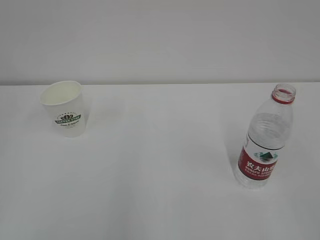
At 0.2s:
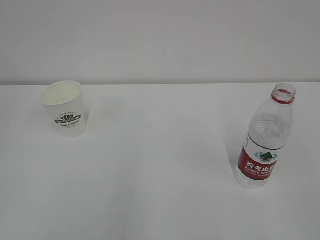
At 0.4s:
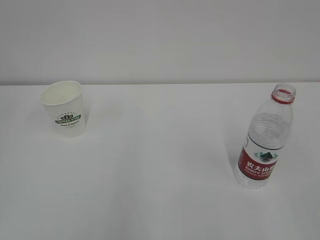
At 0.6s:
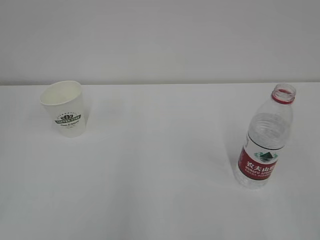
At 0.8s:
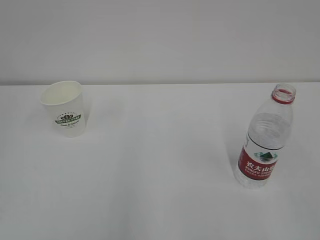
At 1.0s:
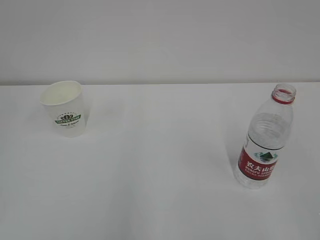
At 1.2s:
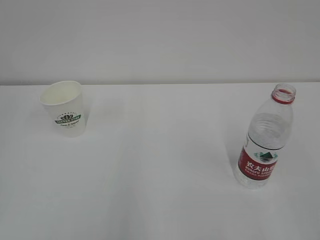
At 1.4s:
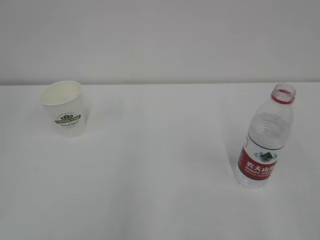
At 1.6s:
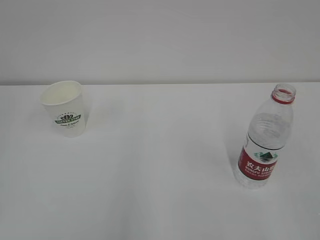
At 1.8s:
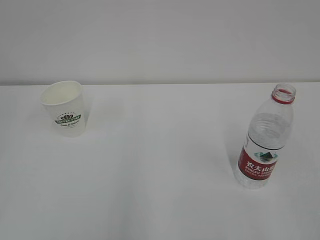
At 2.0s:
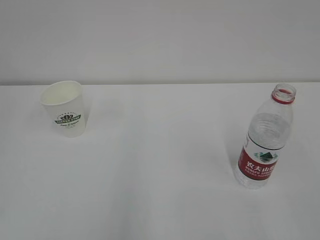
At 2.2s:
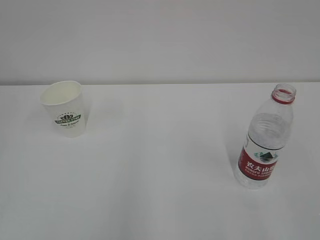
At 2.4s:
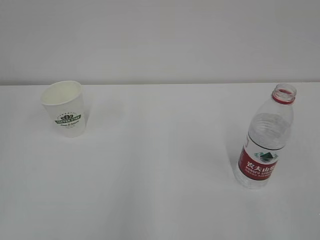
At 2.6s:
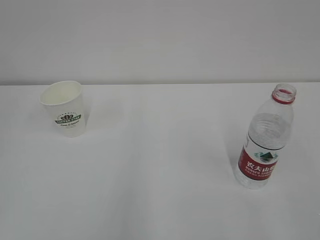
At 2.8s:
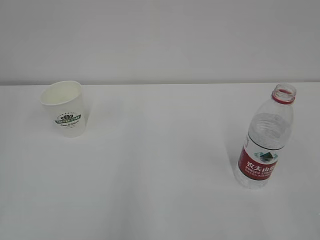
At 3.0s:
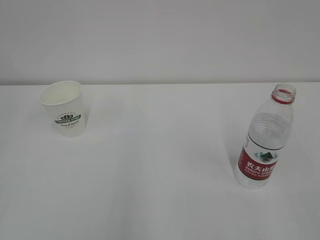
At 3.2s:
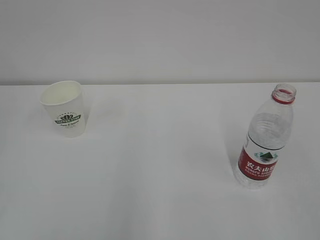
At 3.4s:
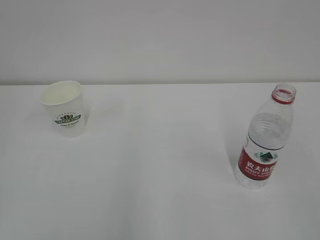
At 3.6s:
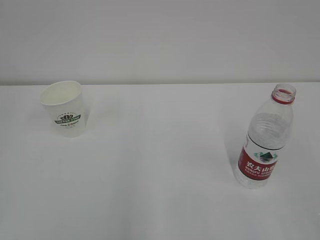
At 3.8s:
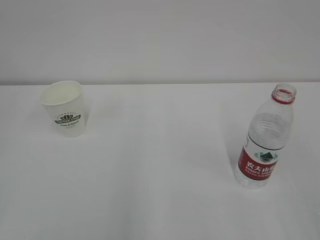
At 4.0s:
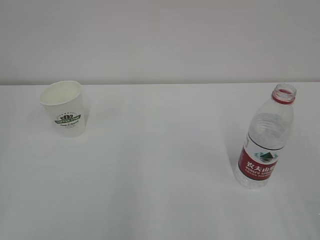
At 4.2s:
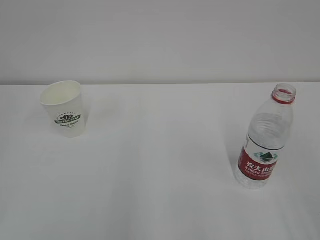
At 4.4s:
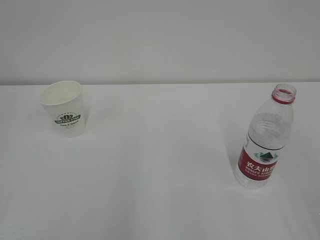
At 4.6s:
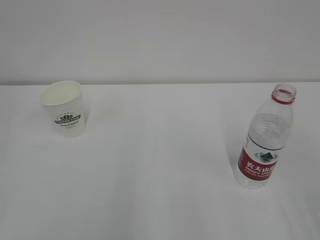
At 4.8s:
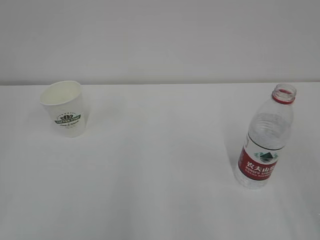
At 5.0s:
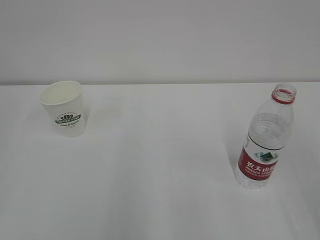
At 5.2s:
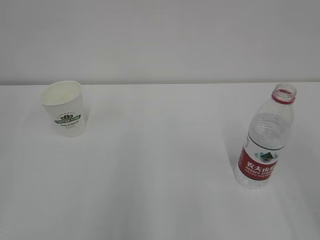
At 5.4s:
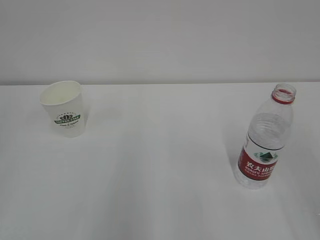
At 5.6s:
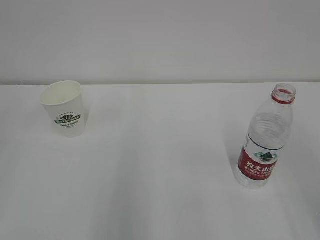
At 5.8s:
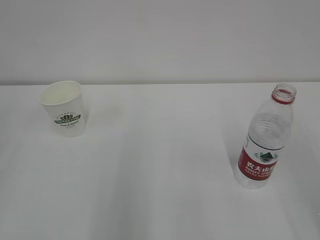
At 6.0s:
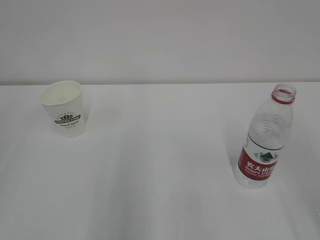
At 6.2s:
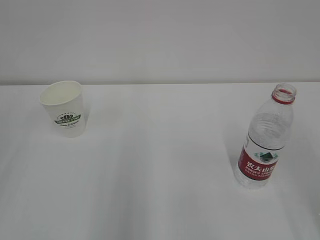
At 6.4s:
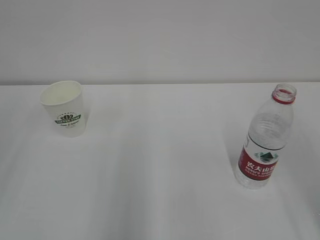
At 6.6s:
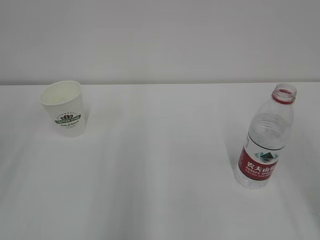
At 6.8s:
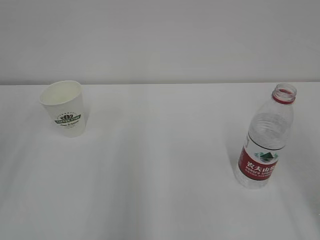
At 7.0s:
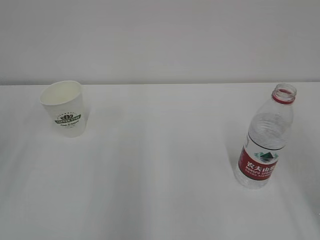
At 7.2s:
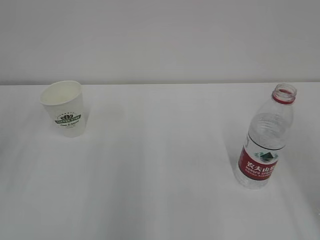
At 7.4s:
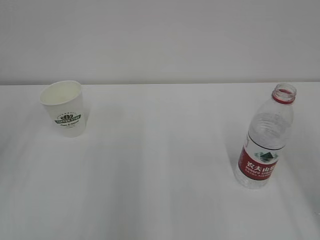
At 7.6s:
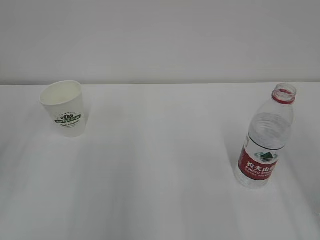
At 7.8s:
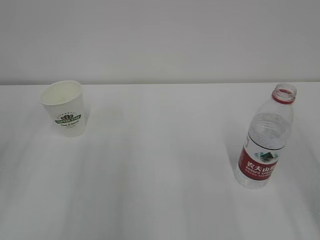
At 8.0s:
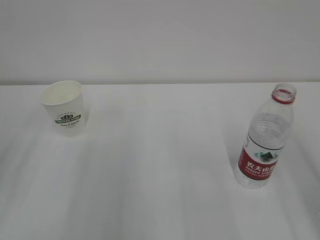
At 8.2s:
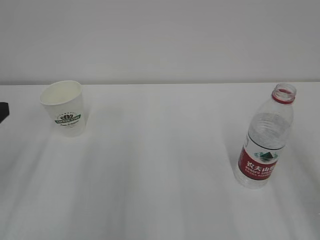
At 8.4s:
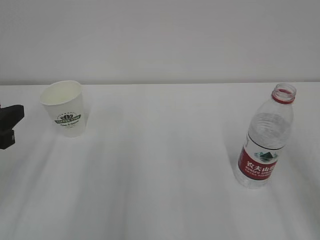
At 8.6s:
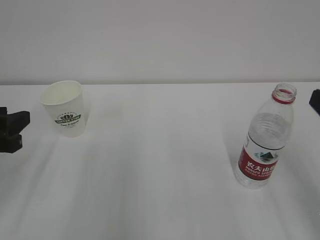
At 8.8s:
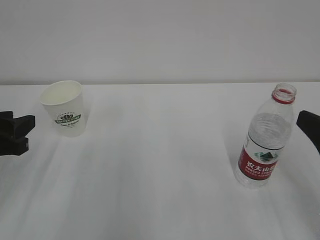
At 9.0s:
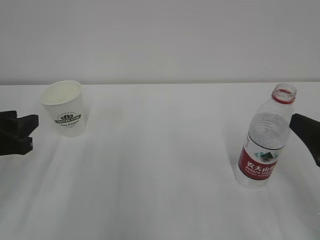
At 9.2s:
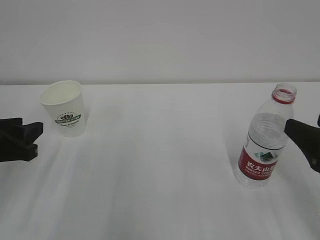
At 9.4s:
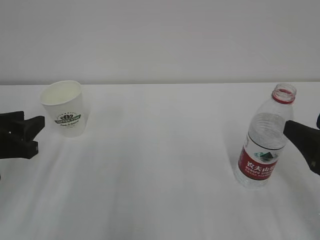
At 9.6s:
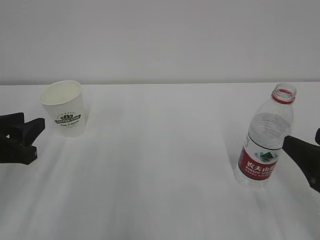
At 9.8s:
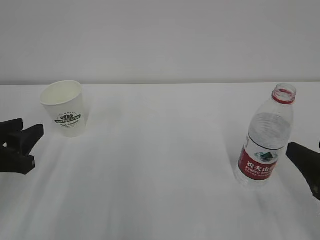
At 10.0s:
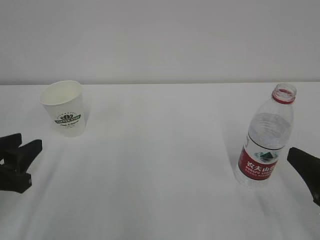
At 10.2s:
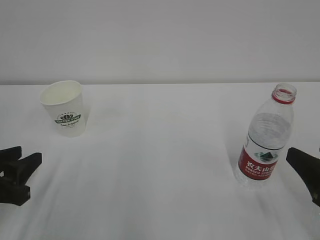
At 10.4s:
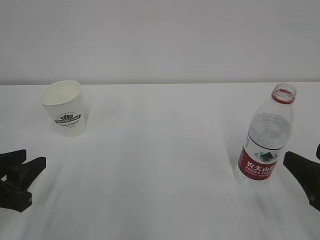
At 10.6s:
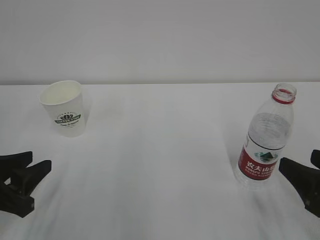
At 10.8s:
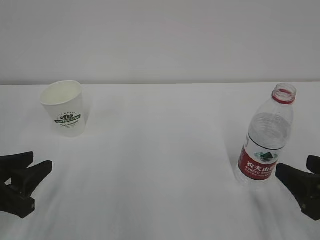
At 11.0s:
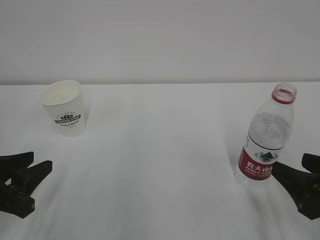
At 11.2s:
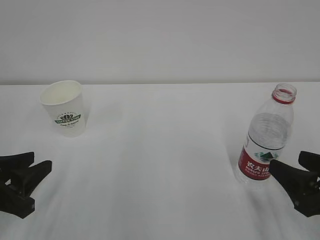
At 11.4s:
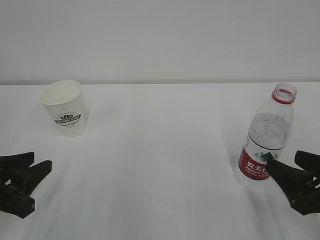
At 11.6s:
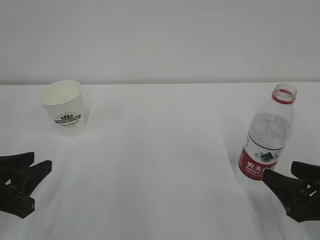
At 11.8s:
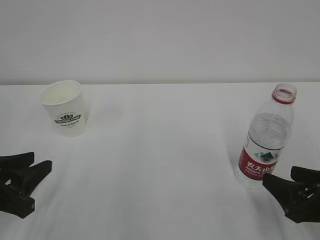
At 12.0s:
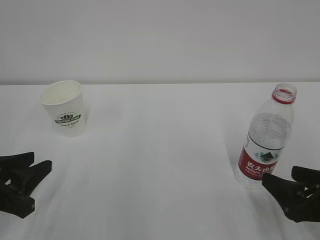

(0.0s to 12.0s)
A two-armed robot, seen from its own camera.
1.6s - 3.0s: Both grippers stay about where they are.
7.6s - 9.0s: Both grippers move downward, some 5 cm.
9.0s - 10.4s: The left gripper changes place by approximately 5 cm.
10.4s - 12.0s: The right gripper heads downward, covering roughly 5 cm.

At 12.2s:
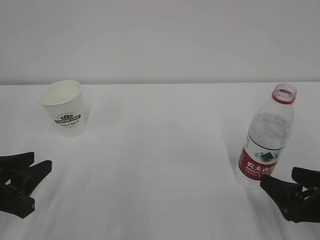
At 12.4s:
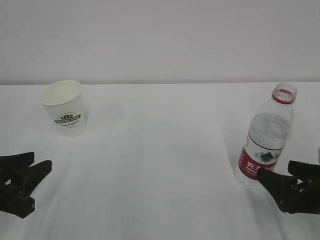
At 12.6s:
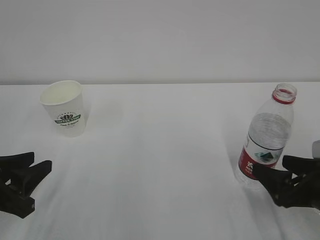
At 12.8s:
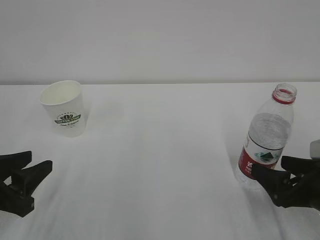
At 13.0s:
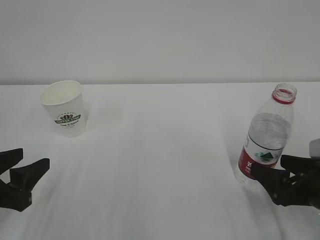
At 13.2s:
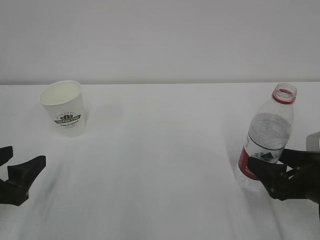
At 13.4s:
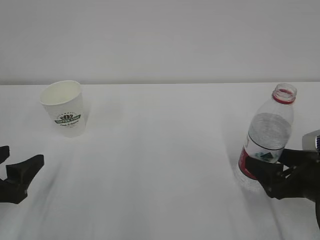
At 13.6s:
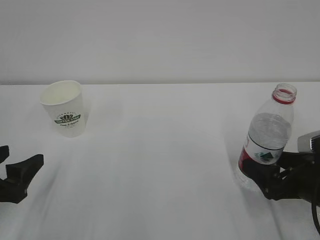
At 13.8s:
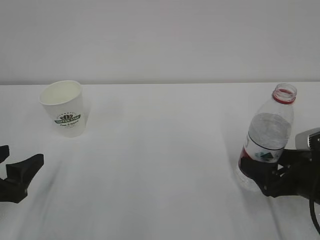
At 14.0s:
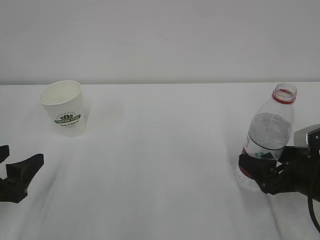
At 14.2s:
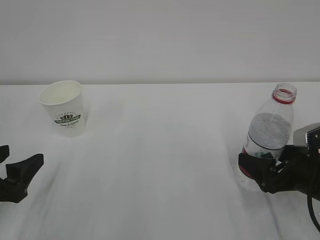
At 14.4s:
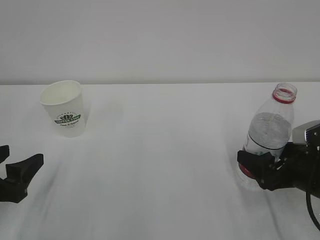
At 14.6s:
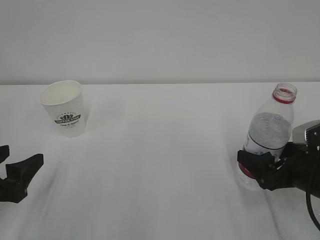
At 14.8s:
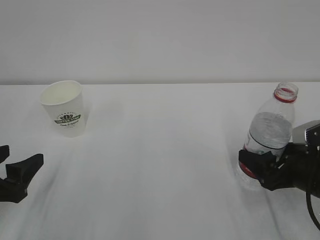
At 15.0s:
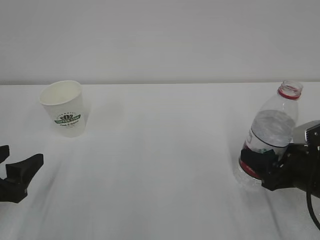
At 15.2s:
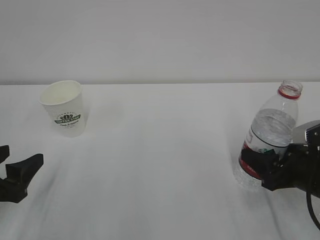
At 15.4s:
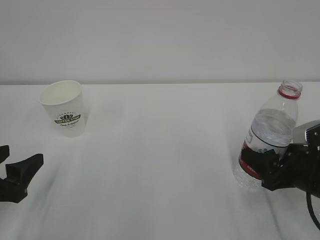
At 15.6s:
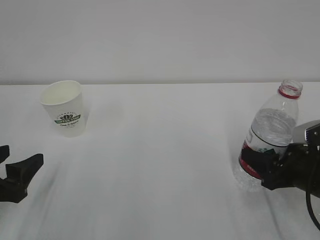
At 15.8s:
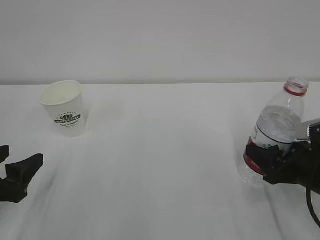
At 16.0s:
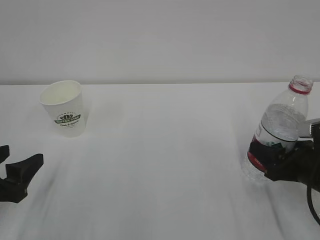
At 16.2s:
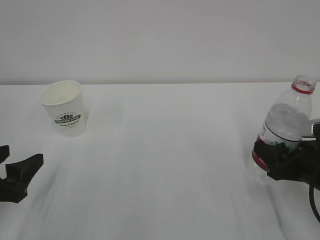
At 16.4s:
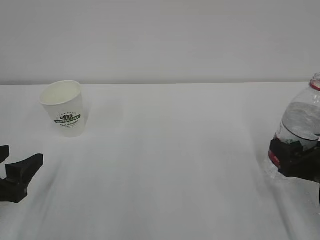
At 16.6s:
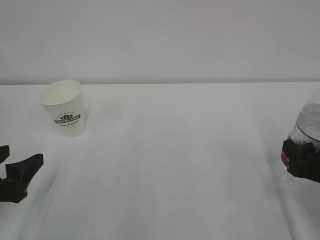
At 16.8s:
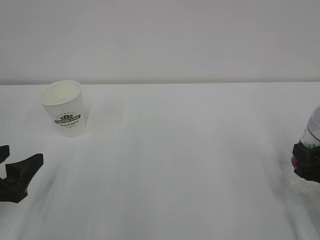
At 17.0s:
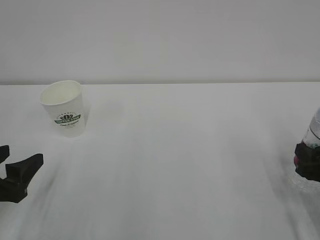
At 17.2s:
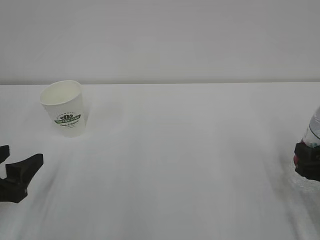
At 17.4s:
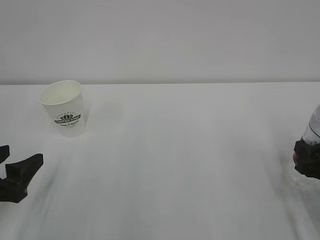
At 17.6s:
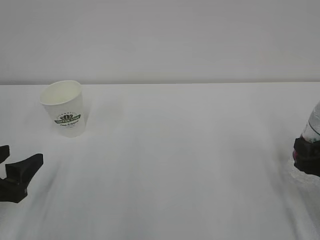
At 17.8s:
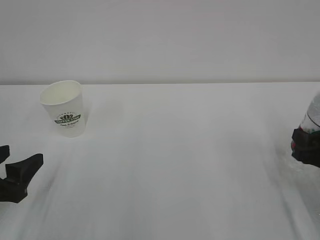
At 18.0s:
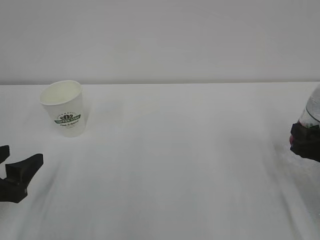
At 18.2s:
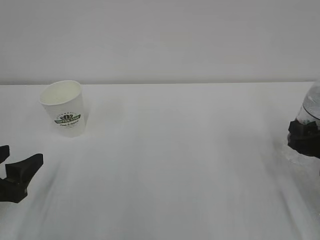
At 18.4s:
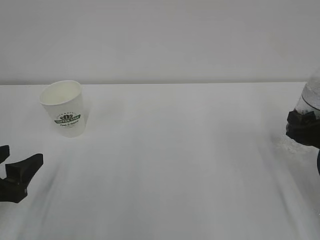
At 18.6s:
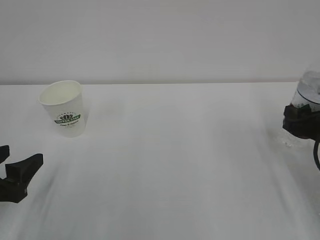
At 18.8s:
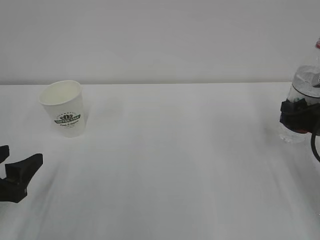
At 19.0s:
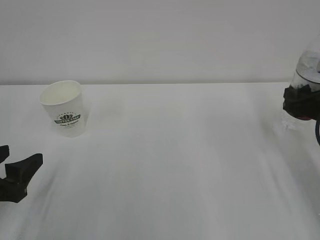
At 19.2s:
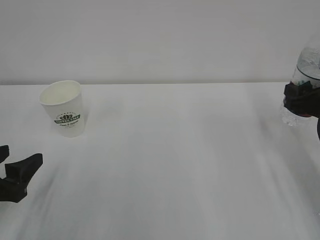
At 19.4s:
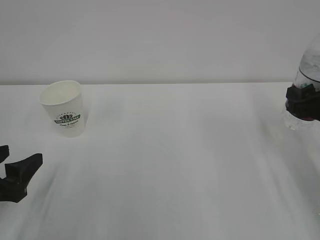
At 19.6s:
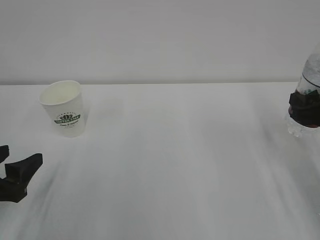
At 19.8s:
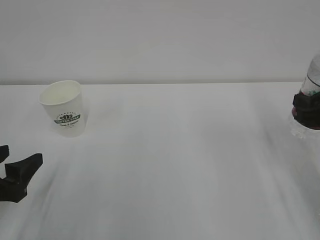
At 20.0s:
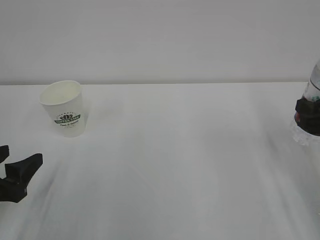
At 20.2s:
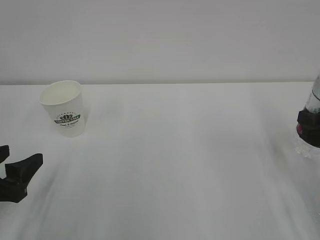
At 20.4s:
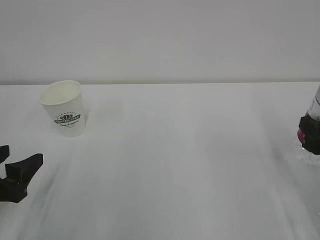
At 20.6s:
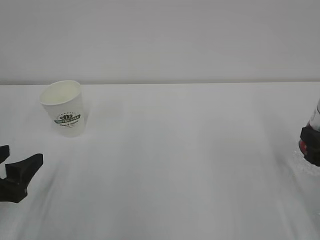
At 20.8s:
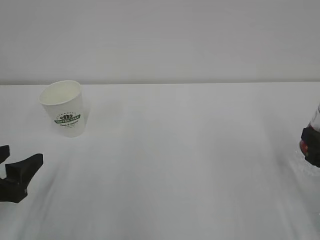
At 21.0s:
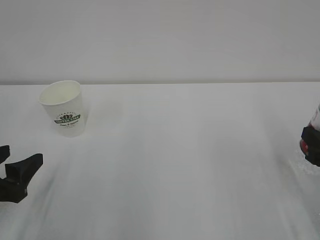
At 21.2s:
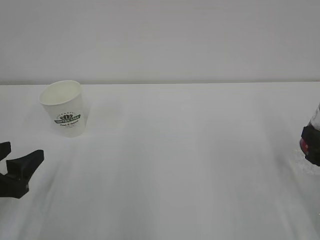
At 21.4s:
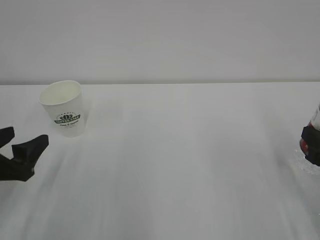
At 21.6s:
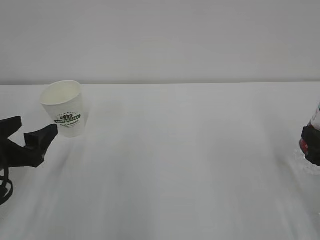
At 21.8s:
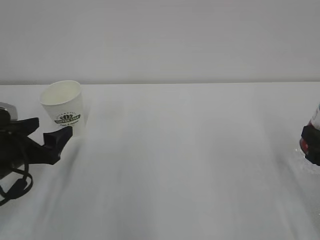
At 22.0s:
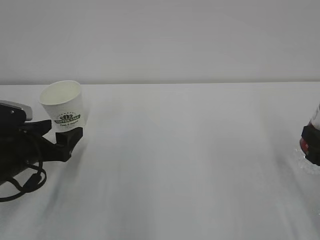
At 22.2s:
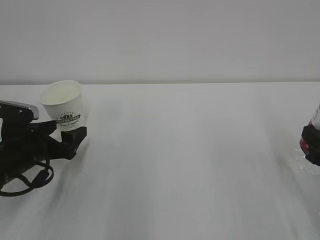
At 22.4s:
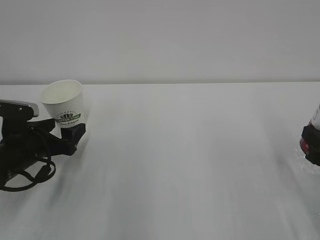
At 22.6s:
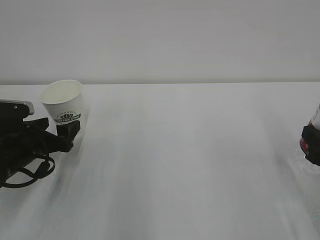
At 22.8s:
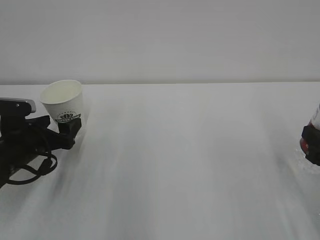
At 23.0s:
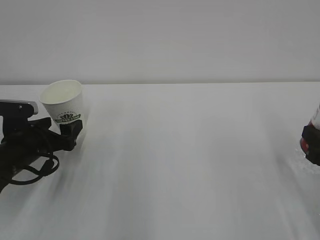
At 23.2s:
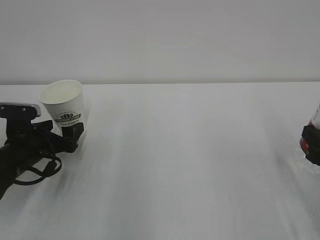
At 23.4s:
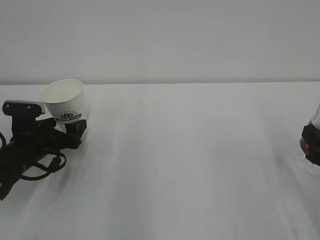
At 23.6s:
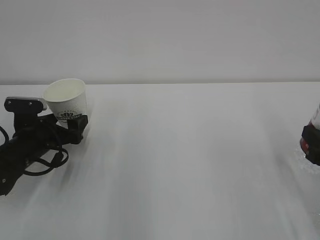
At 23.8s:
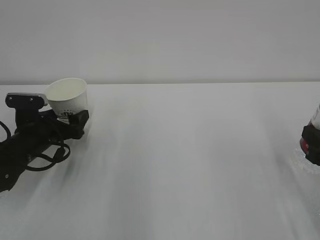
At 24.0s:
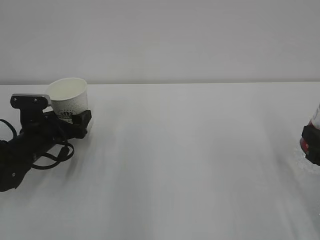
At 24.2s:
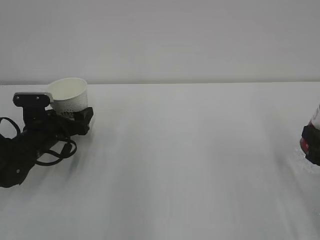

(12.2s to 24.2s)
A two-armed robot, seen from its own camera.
12.2s - 13.8s: The left gripper opens its fingers, while the right gripper heads forward, covering roughly 5 cm.
13.8s - 15.2s: The right gripper closes up.
16.6s - 18.2s: The grippers stay close to where they were, moving slightly.
18.2s - 19.8s: The right gripper is displaced upward by approximately 5 cm.
19.8s - 21.2s: The right gripper is displaced backward by approximately 5 cm.
21.2s - 22.6s: The left gripper heads forward, covering some 10 cm.
22.6s - 24.2s: The left gripper shifts approximately 5 cm forward.
